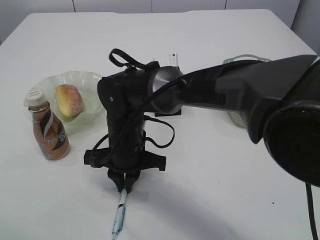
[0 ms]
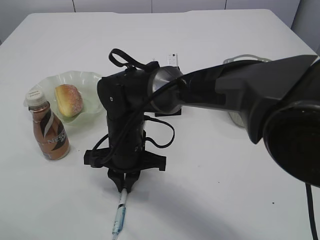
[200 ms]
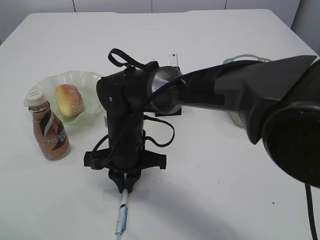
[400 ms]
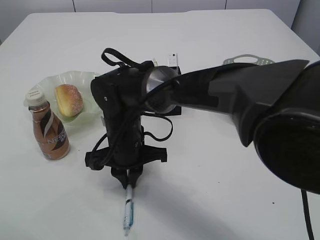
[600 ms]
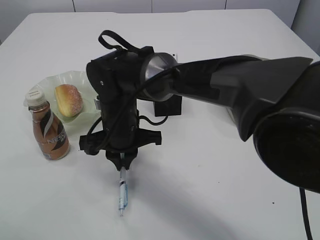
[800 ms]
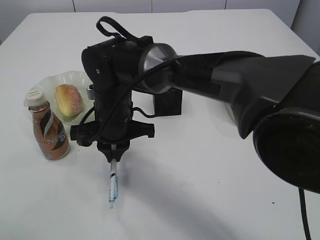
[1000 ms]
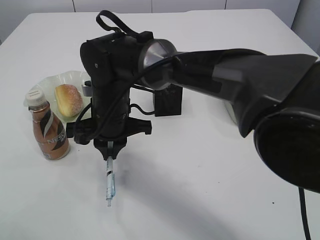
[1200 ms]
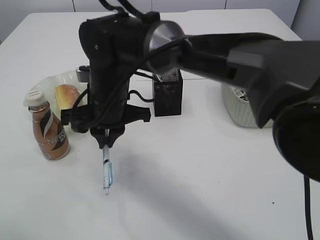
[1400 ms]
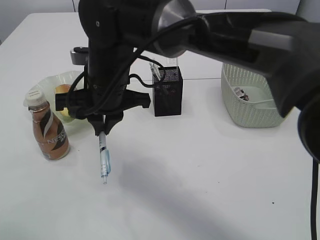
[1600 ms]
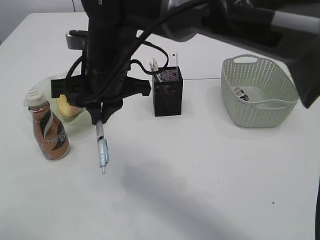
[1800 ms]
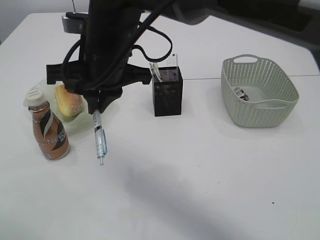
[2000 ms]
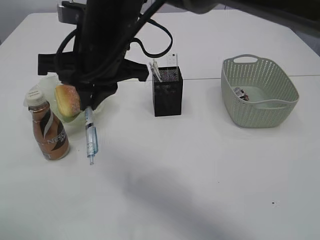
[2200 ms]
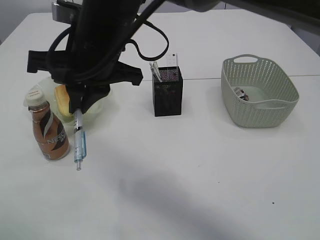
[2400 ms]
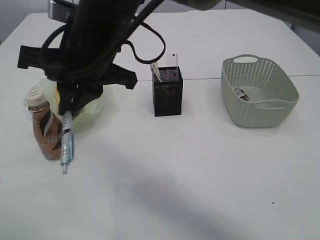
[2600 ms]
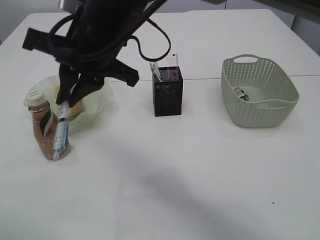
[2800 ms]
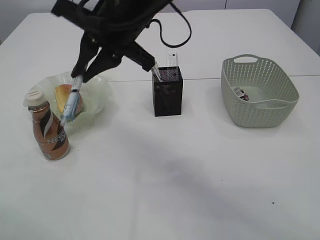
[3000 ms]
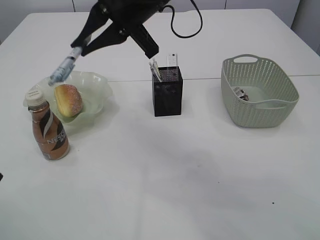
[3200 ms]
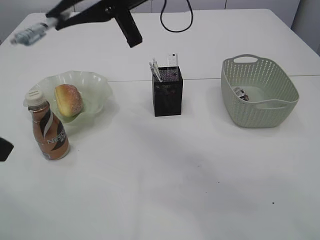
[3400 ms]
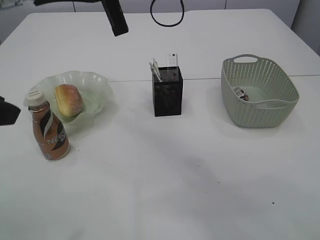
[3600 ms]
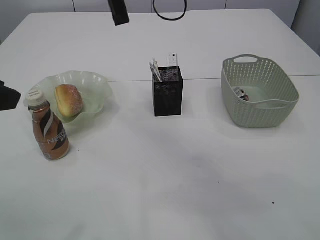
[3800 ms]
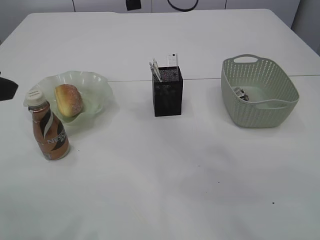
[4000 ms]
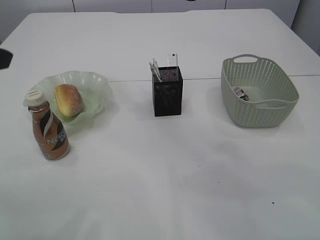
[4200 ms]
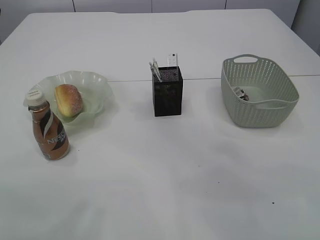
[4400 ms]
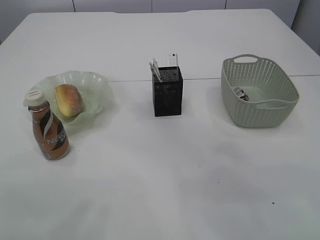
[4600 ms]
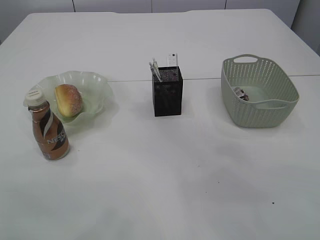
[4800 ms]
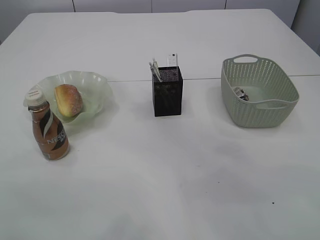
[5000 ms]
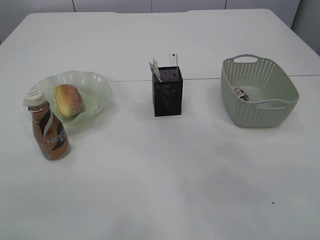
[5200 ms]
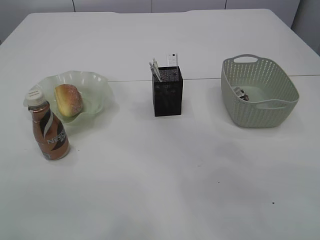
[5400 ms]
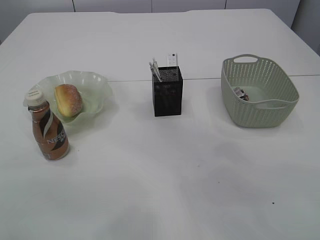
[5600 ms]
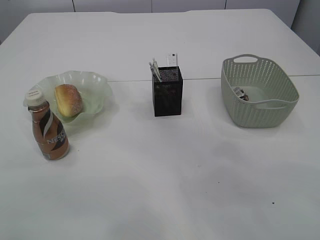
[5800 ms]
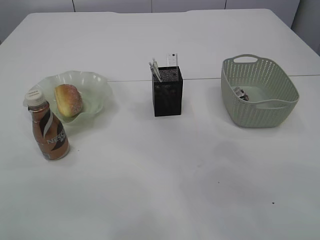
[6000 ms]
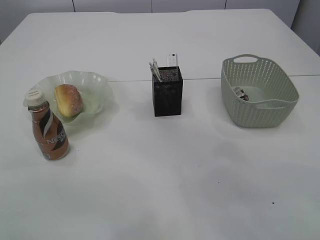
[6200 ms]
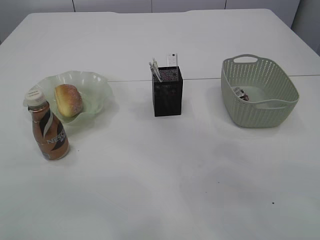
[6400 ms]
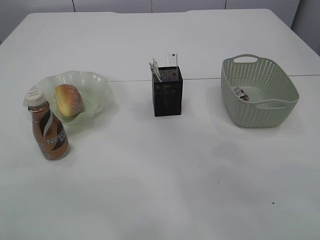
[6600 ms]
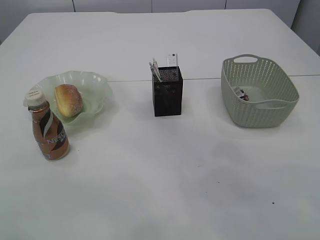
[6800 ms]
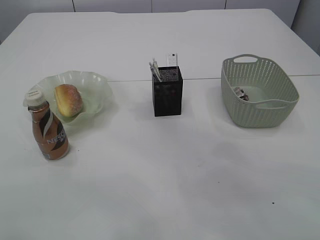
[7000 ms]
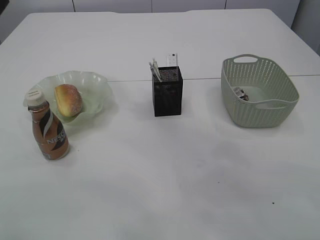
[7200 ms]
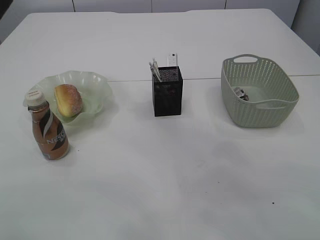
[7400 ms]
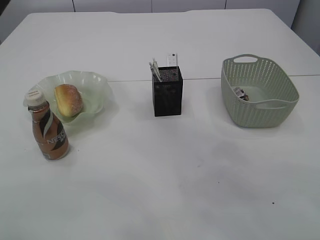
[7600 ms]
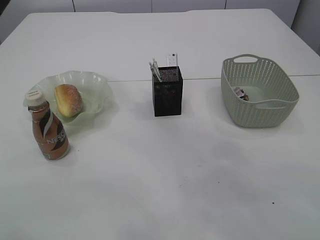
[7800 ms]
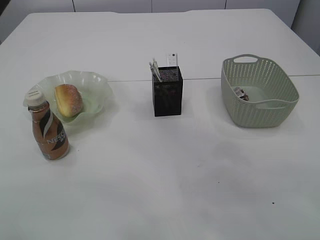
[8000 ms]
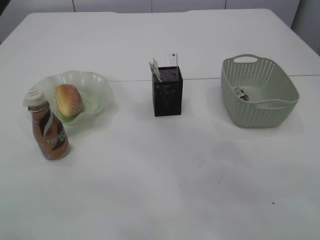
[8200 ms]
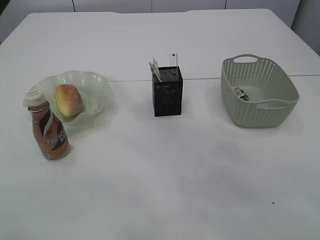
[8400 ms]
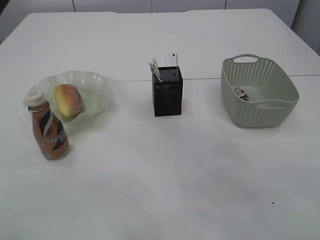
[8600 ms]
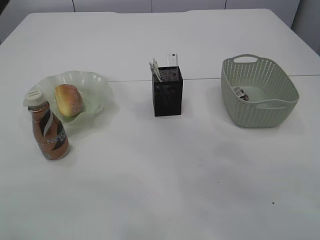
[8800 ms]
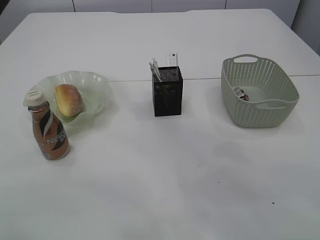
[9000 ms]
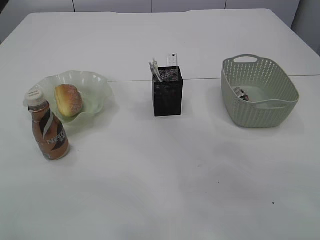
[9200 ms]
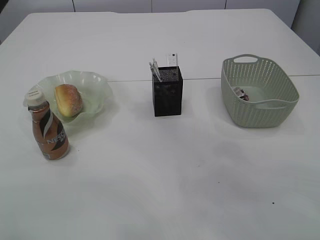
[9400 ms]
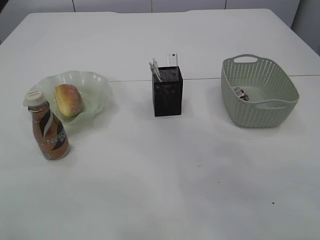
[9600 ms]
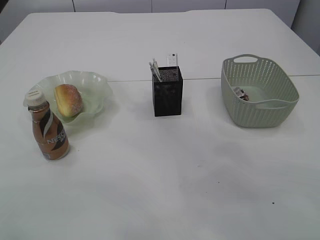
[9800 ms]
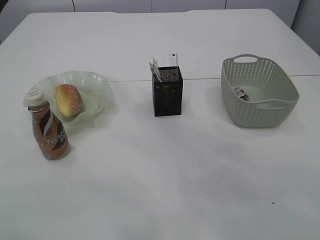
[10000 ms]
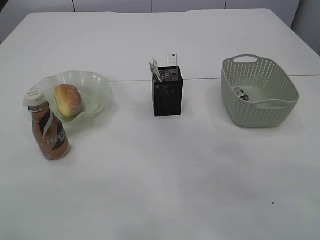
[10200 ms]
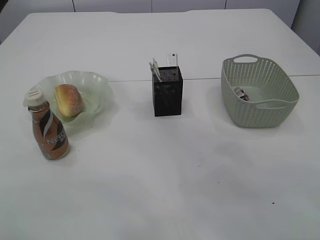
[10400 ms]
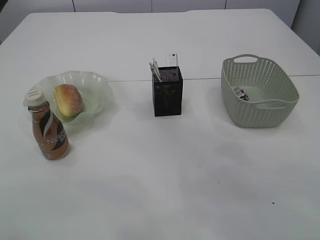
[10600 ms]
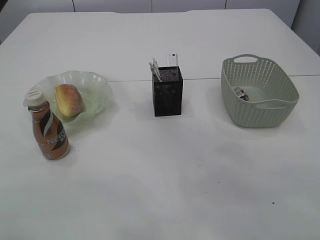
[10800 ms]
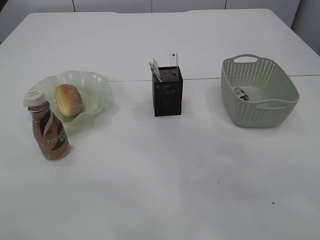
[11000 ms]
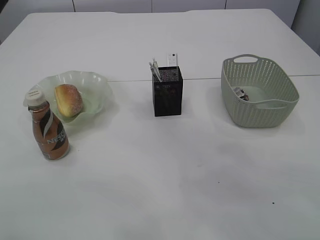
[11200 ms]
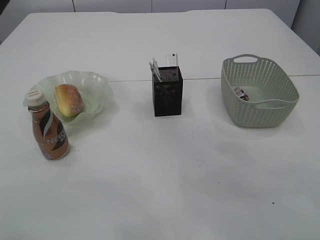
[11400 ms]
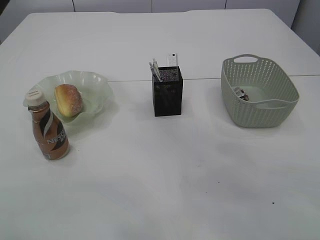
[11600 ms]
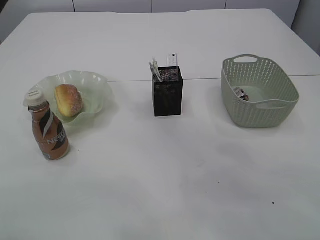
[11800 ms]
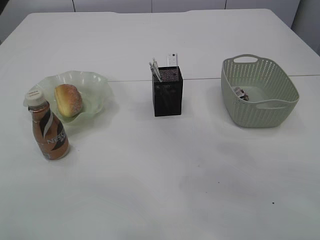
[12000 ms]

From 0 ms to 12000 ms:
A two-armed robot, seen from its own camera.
From 0 ms to 1600 ms: The right gripper heads upward, covering about 10 cm.
From 1600 ms to 3000 ms: The right gripper travels upward by approximately 10 cm.
From 3000 ms to 4400 ms: The right gripper heads upward and to the right, covering about 10 cm, while the left gripper moves forward and upward, some 10 cm.
From 9000 ms to 10400 ms: The two grippers keep their place.

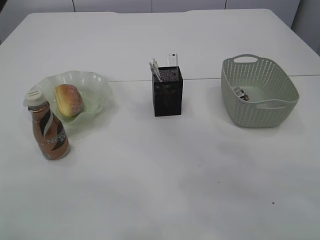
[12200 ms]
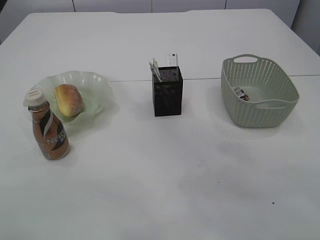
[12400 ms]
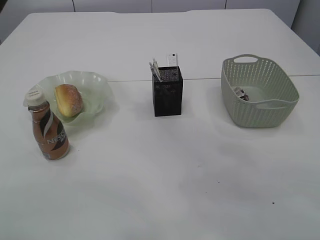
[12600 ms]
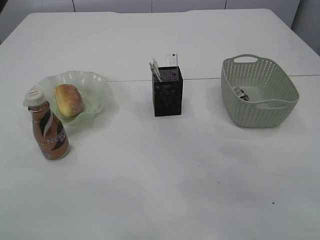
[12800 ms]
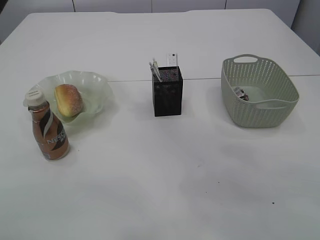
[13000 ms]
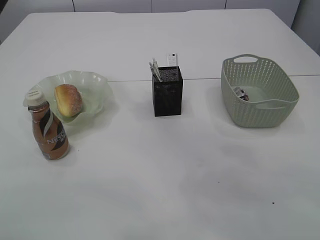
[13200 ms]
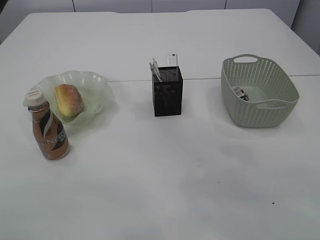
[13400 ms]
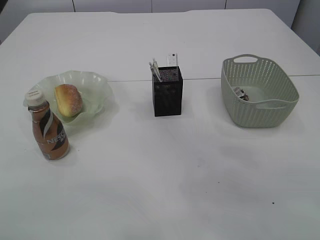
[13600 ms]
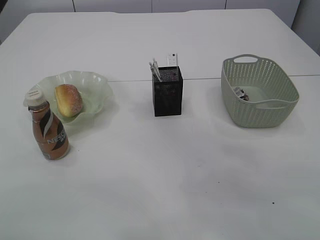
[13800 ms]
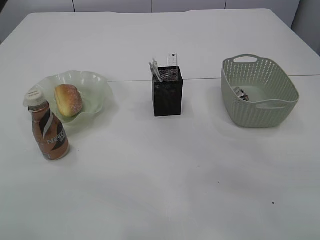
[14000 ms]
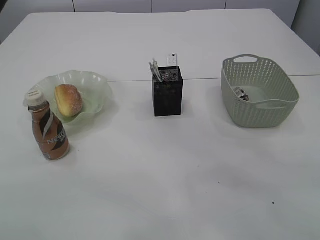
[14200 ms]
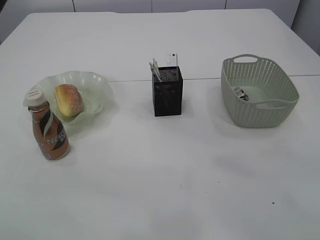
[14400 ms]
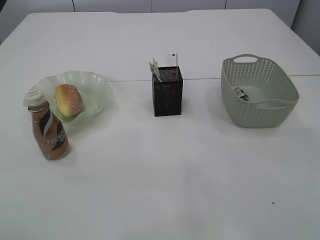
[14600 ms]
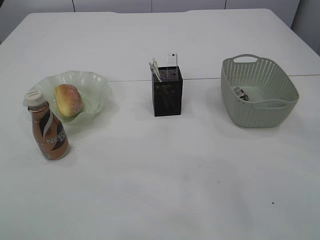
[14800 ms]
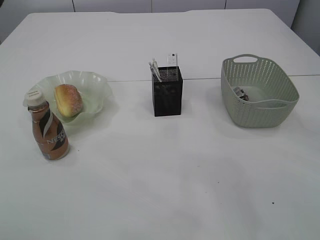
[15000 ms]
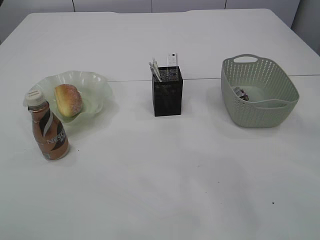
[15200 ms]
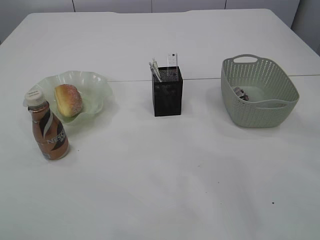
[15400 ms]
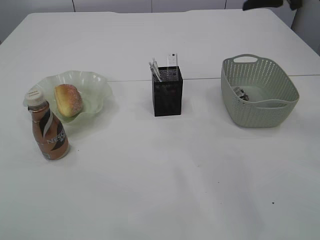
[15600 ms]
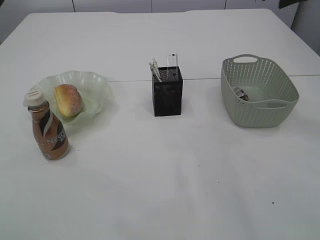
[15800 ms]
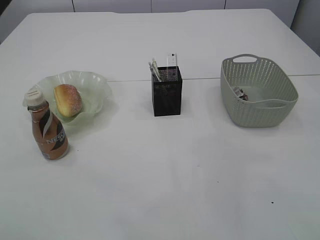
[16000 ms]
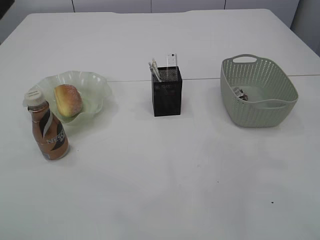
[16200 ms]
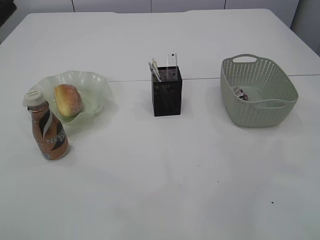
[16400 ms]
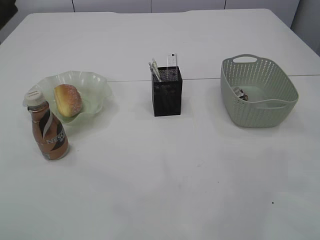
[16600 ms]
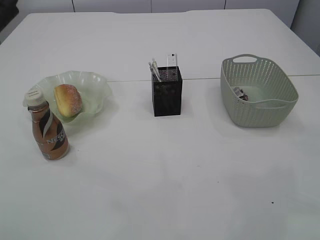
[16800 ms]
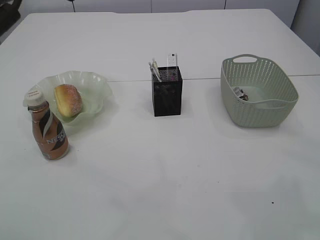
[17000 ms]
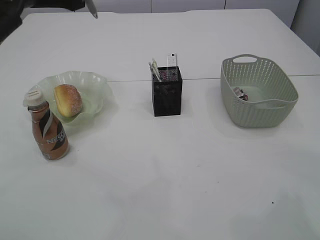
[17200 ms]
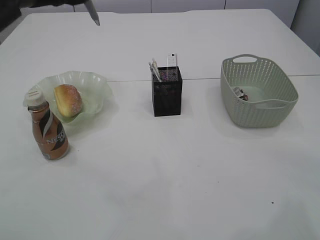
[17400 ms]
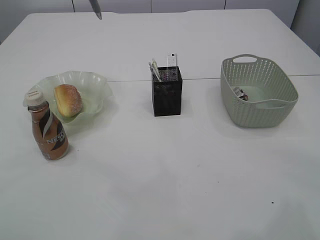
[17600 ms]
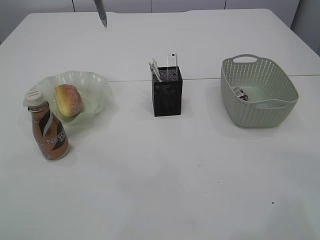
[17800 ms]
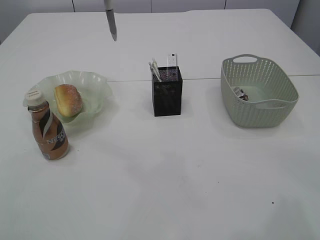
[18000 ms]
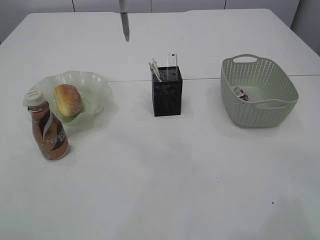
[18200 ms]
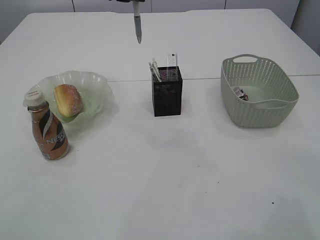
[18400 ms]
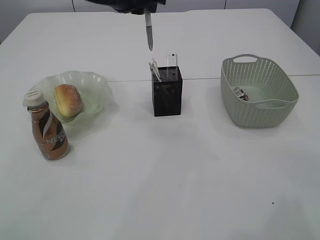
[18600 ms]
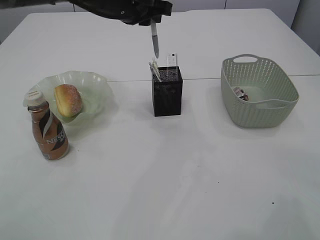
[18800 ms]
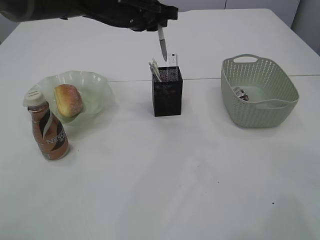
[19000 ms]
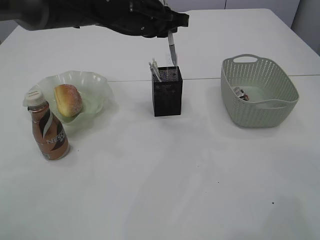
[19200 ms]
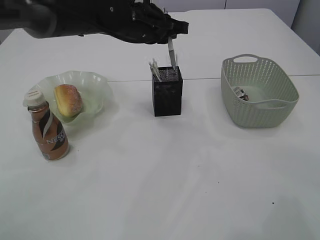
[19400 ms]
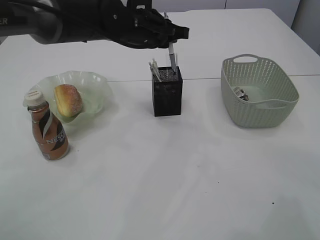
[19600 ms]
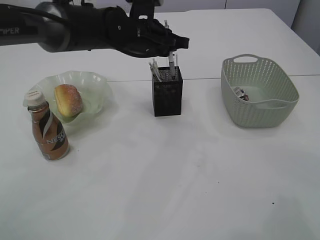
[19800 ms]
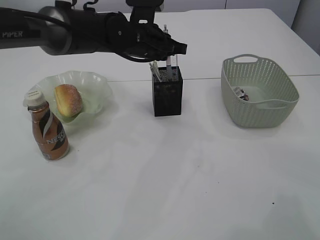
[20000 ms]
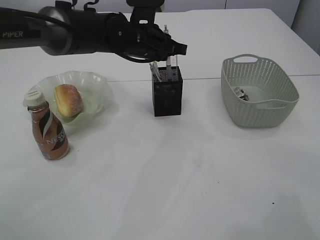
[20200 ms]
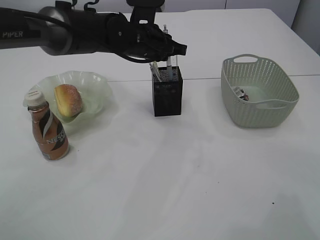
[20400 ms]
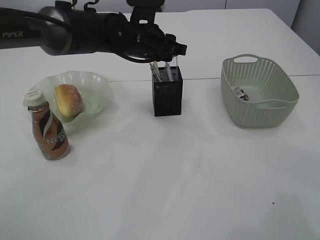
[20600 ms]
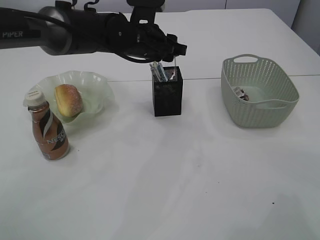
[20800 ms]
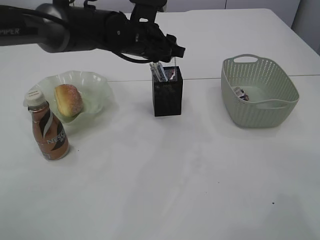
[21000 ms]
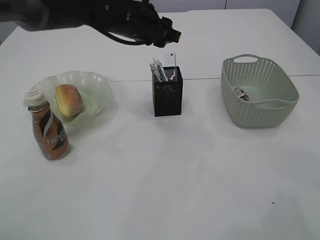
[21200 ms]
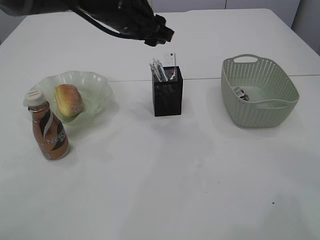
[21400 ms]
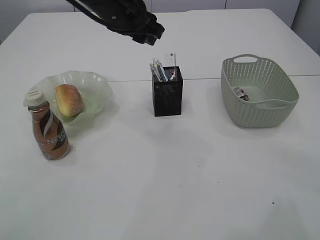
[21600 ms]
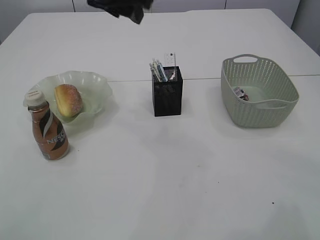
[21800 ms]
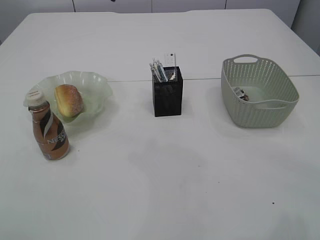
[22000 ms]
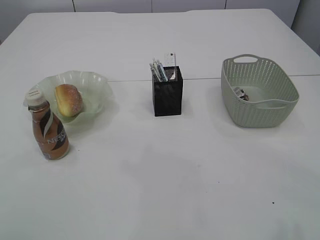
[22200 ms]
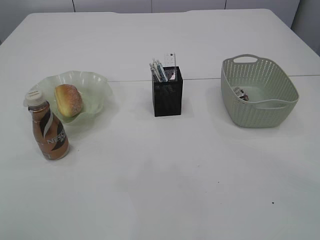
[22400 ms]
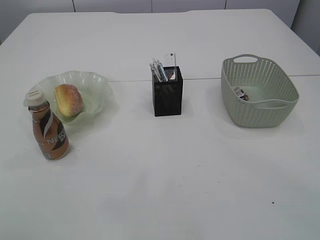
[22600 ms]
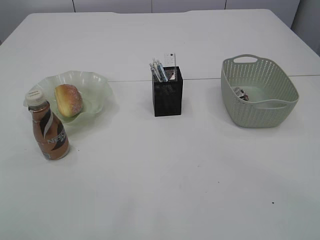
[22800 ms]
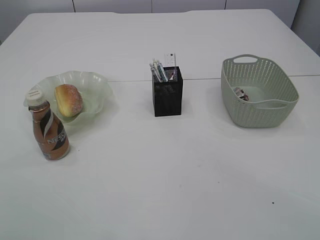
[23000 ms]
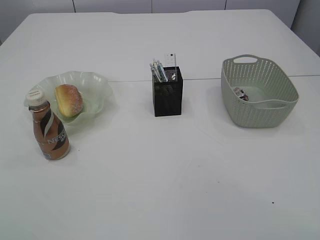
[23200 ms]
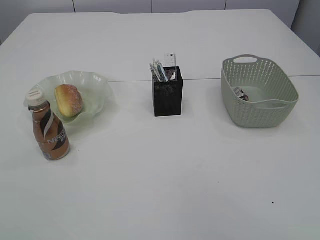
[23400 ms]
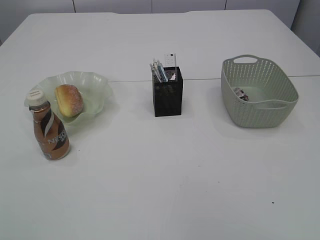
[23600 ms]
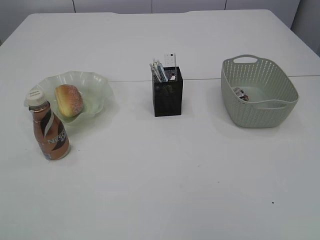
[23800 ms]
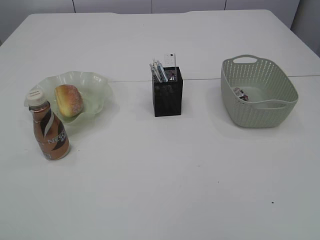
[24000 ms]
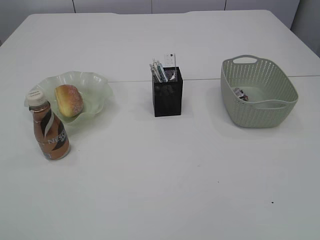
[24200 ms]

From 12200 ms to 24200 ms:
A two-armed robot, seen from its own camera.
Step, from 12200 ms to 21600 ms: Place the pen into the pen holder.
From 12200 ms to 13800 ms: Both grippers stay put.
From 16600 ms to 18200 ms: The left gripper heads forward, covering some 10 cm.
From 18200 ms to 19800 ms: The left gripper travels downward, forward and to the right by about 20 cm.
From 19800 ms to 21200 ms: The left gripper opens its fingers.
From 21200 ms to 22600 ms: The left gripper is displaced upward, backward and to the left by approximately 30 cm, while the right gripper is displaced backward by roughly 10 cm.
From 22600 ms to 24200 ms: The right gripper heads backward, covering about 20 cm, and opens.
